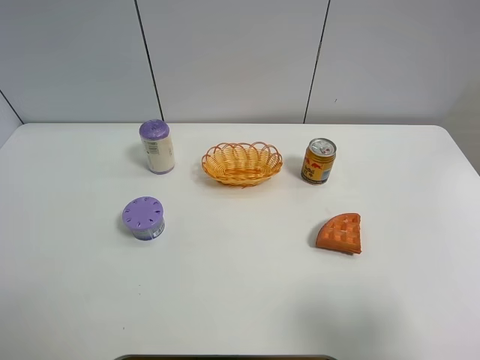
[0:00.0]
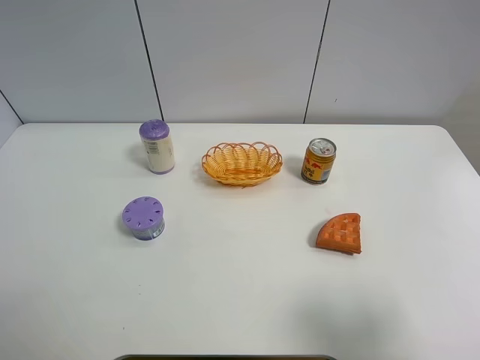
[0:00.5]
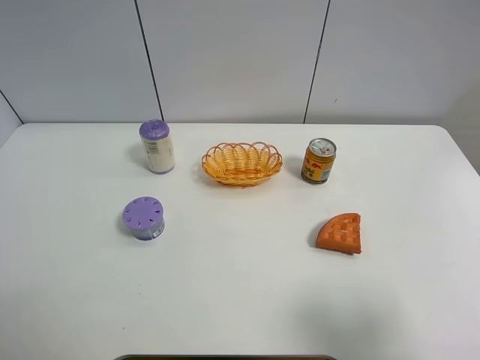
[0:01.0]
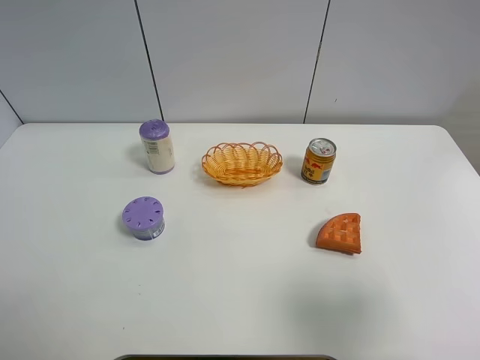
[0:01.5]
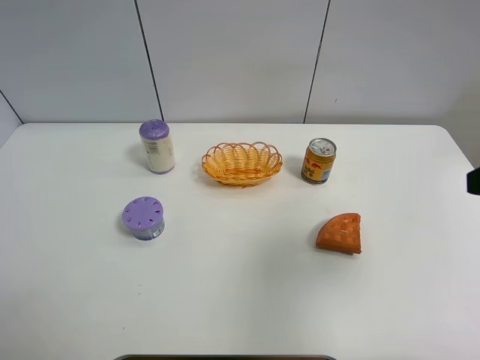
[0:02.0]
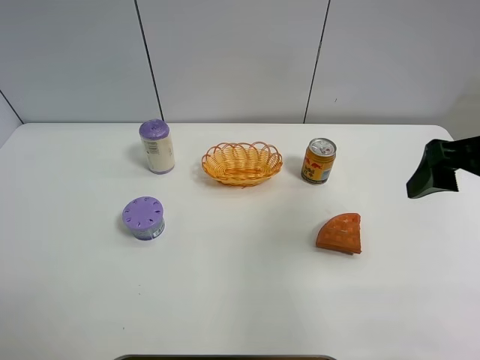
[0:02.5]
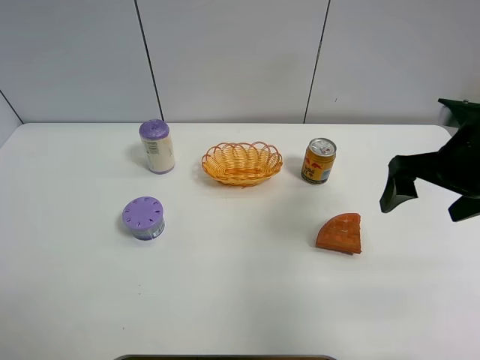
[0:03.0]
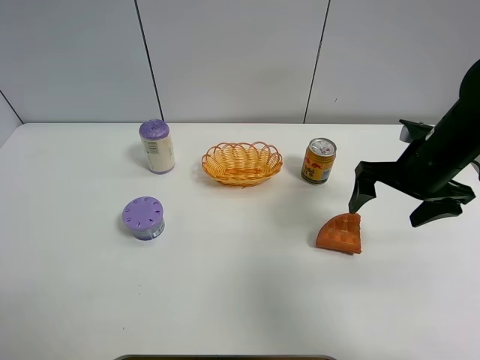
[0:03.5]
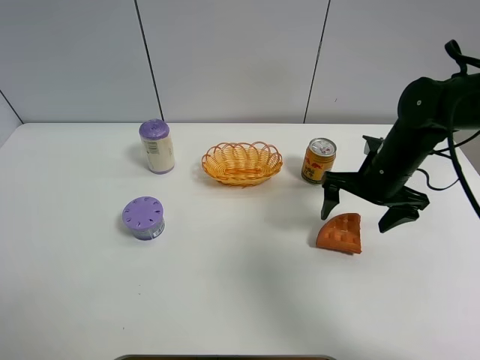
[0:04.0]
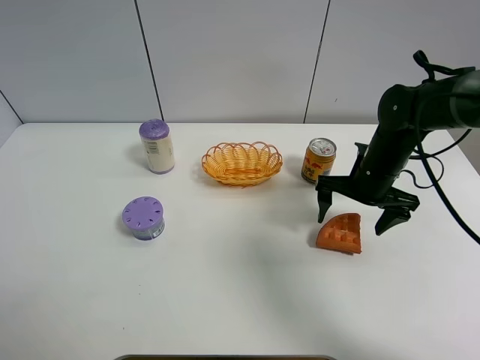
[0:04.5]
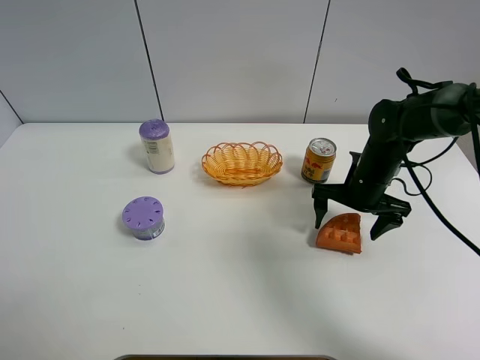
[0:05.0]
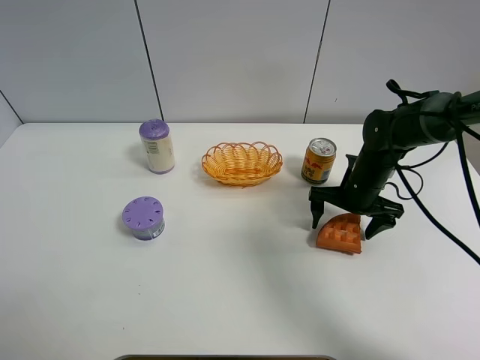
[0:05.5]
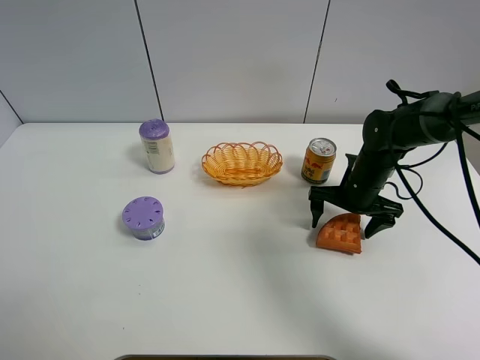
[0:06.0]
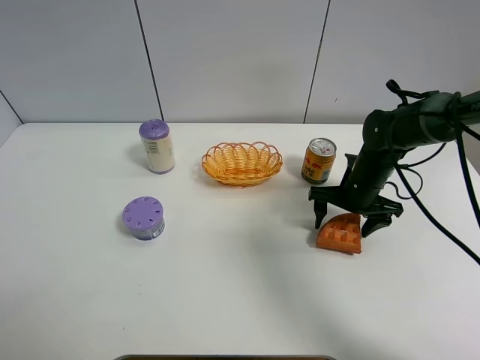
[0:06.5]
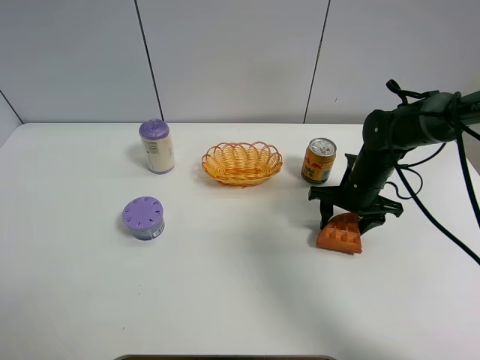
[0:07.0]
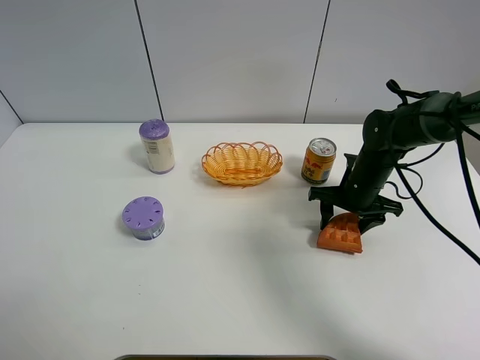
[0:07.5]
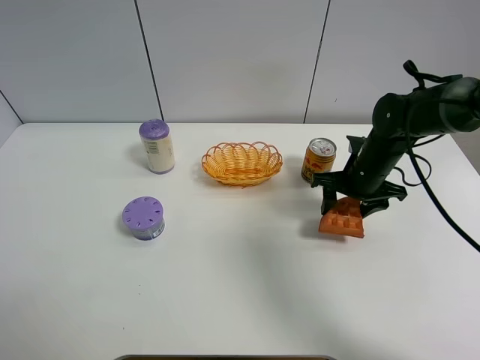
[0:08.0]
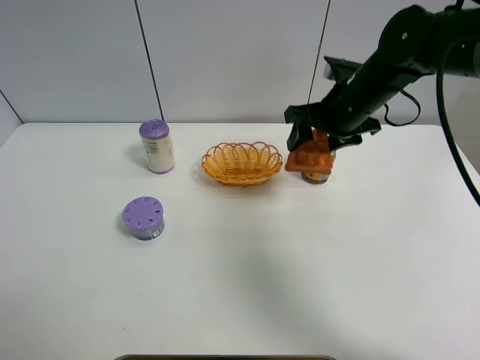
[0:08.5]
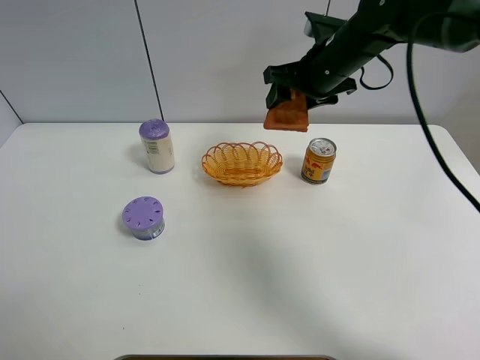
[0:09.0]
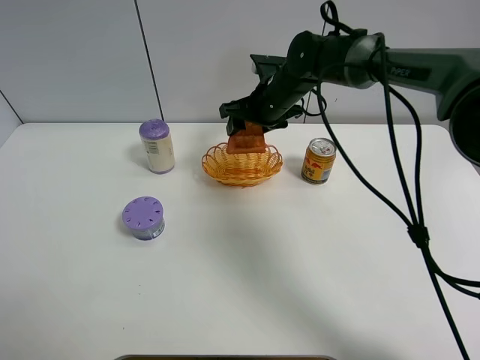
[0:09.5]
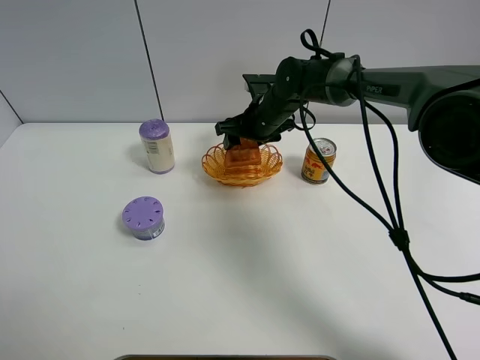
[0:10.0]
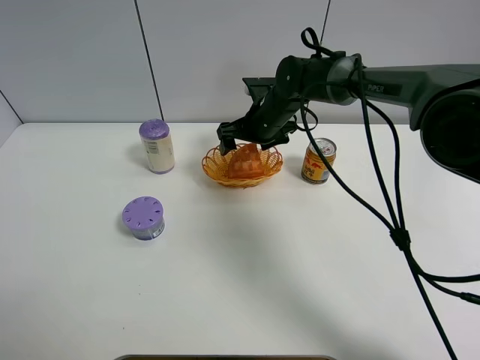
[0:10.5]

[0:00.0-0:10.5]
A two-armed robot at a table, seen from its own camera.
Task of the whole recording: Put the bakery in the basket.
Step, 0:00.0 to 0:06.5: Grasp the bread with right gripper.
0:00.0 to 0:02.0: The right gripper heads forward and upward, covering approximately 15 cm.
0:02.0 to 0:04.0: The right gripper heads forward and downward, covering roughly 25 cm.
0:04.0 to 0:06.5: The right gripper travels downward by roughly 5 cm, and closes its fingers.
0:06.5 to 0:08.5: The right gripper moves upward, approximately 15 cm, and closes up.
0:08.5 to 0:10.5: The right gripper moves to the left, downward and forward, roughly 15 cm, and opens its fingers.

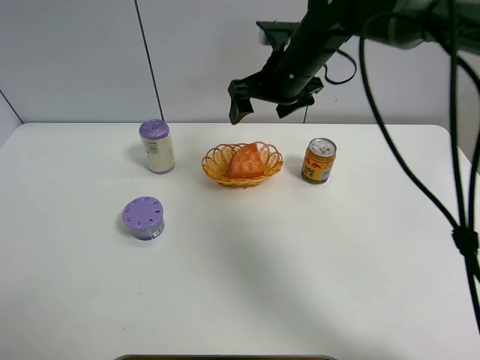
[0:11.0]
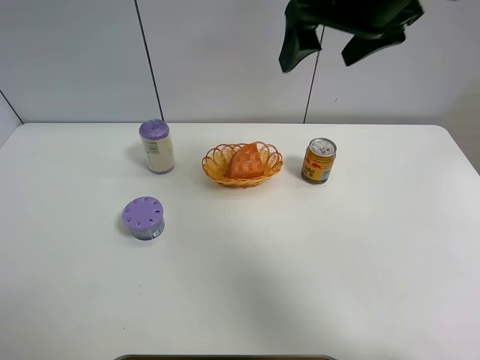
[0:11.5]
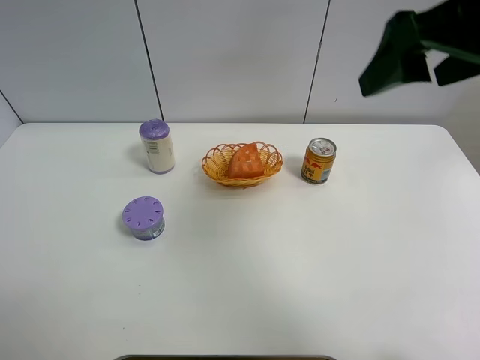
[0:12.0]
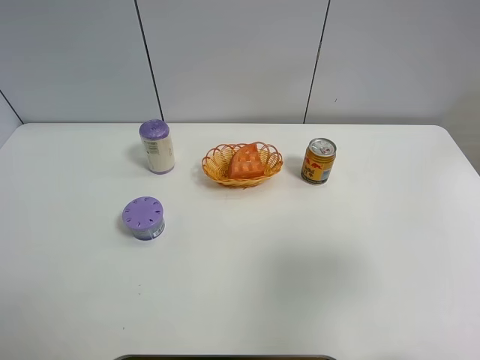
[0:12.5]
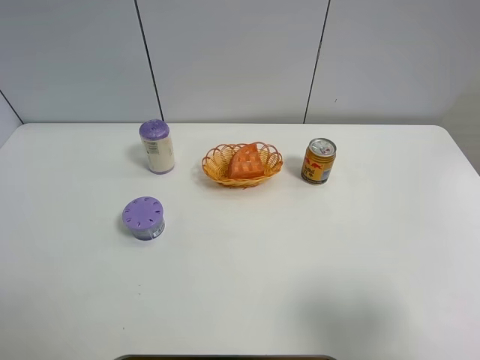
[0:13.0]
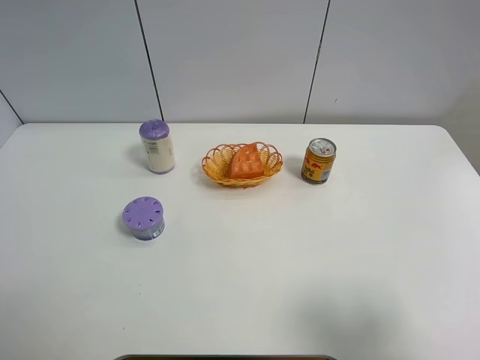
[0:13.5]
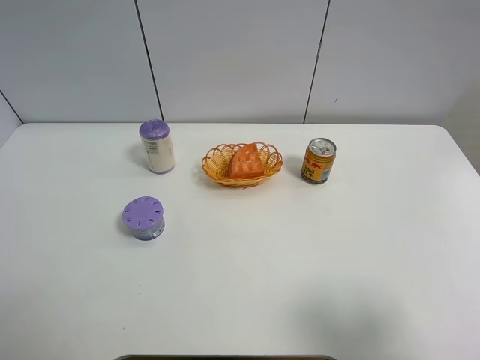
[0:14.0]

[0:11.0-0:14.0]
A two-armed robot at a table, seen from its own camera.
Task of the whole recording: Put the bakery in the basket.
0:11.0 to 0:12.5: The right gripper goes about 40 cm backward and to the right.
0:12.5 to 0:14.0: The right gripper goes some 10 cm backward and downward.

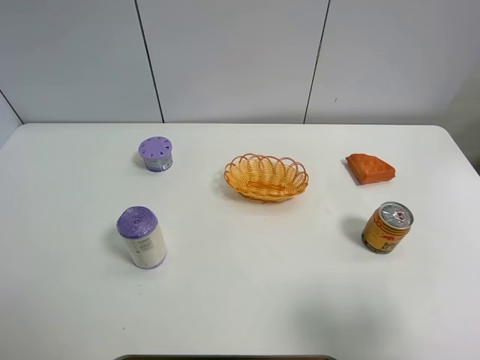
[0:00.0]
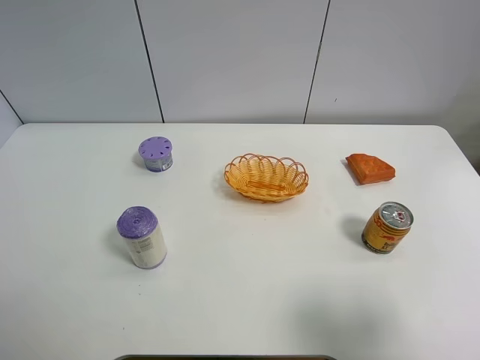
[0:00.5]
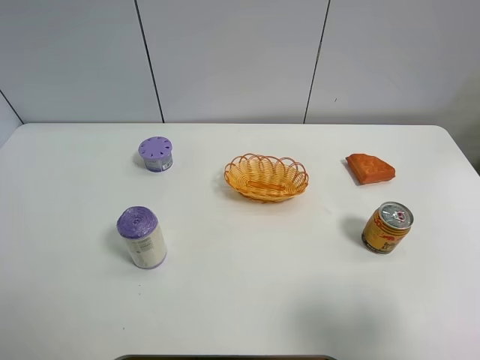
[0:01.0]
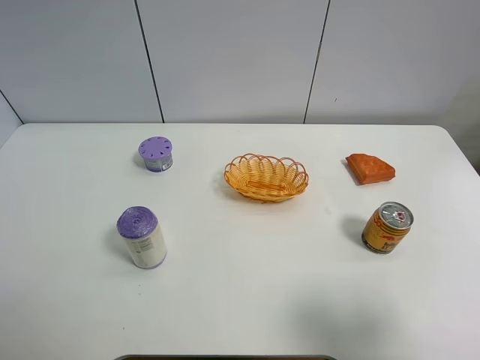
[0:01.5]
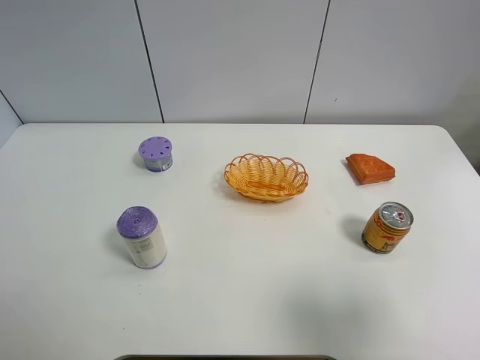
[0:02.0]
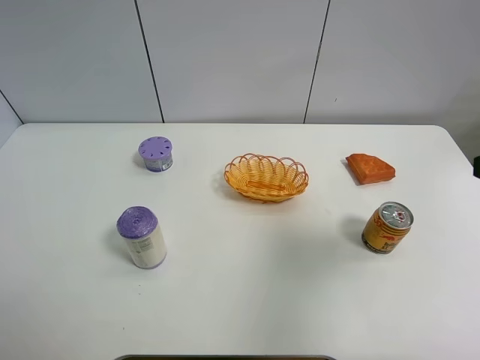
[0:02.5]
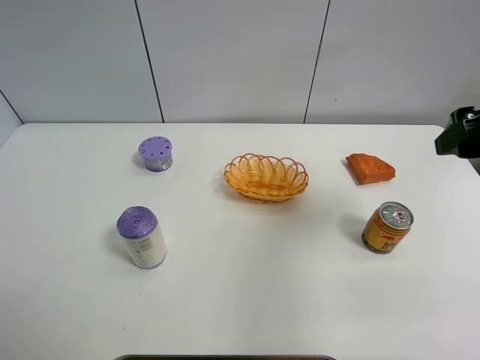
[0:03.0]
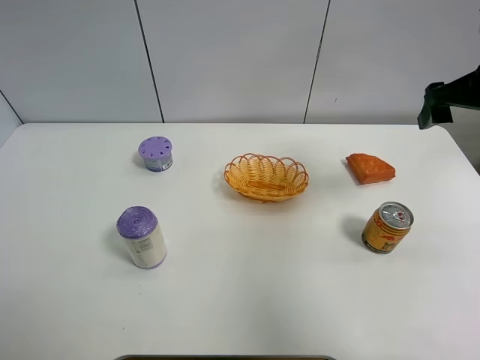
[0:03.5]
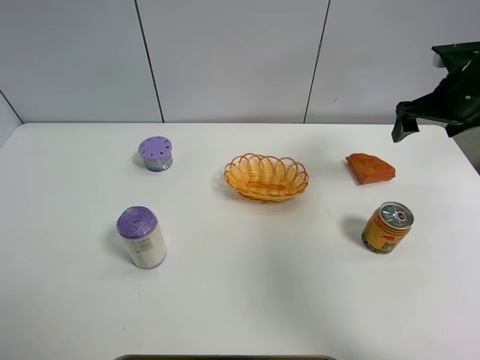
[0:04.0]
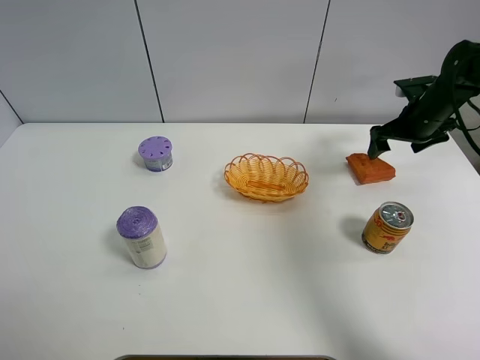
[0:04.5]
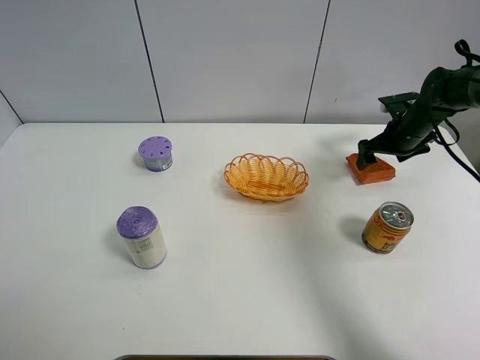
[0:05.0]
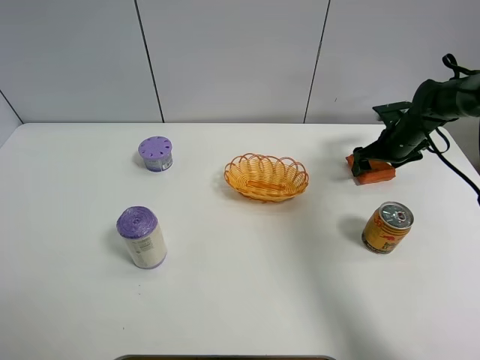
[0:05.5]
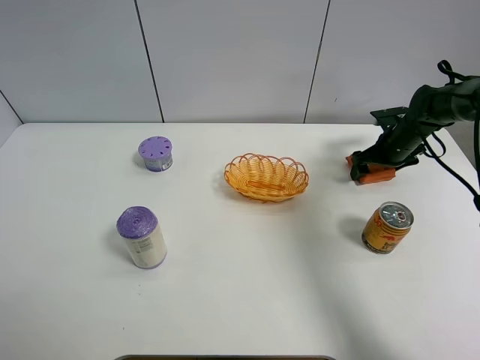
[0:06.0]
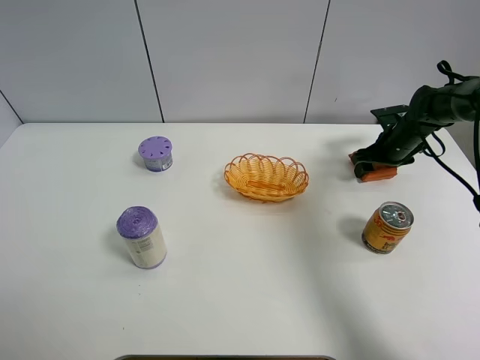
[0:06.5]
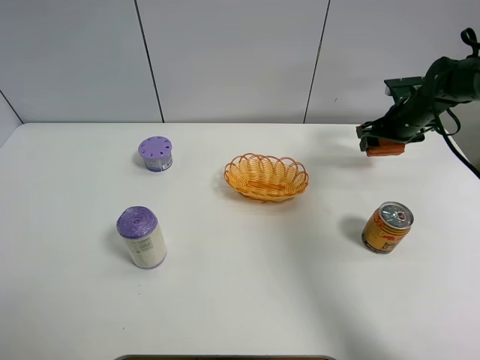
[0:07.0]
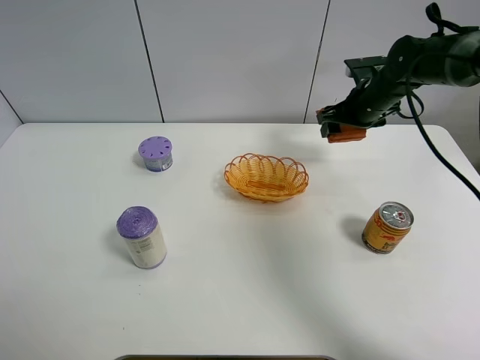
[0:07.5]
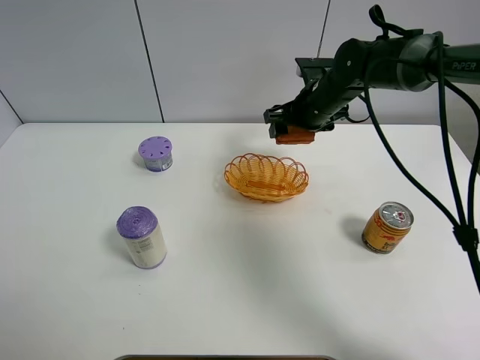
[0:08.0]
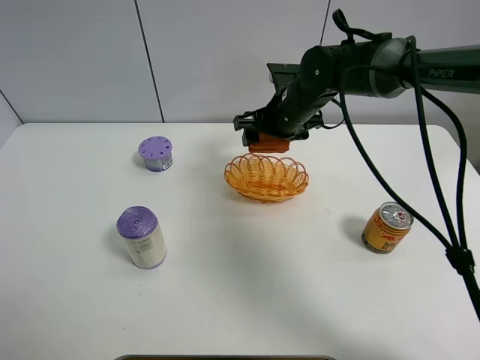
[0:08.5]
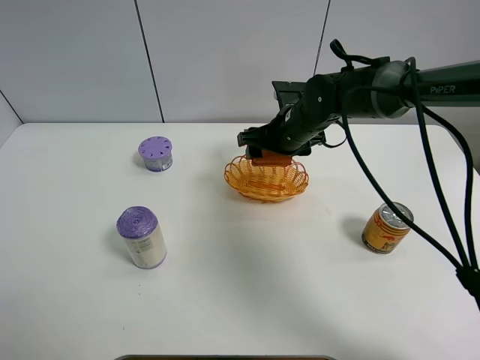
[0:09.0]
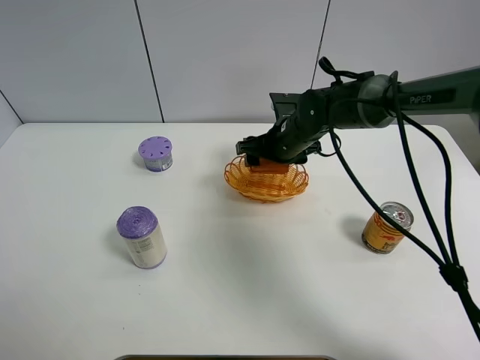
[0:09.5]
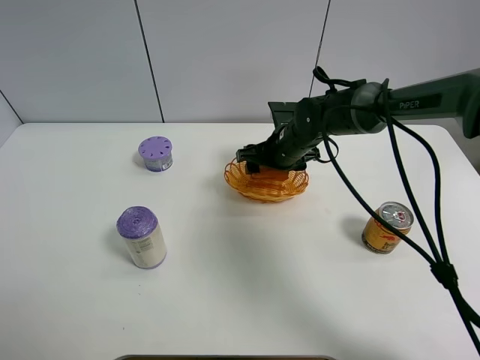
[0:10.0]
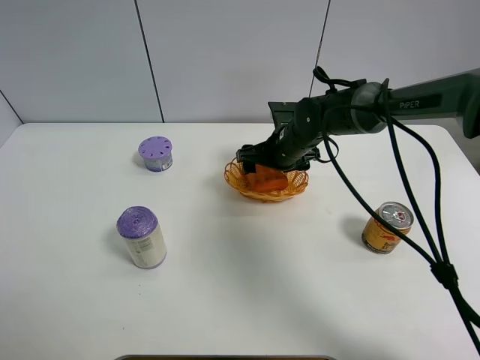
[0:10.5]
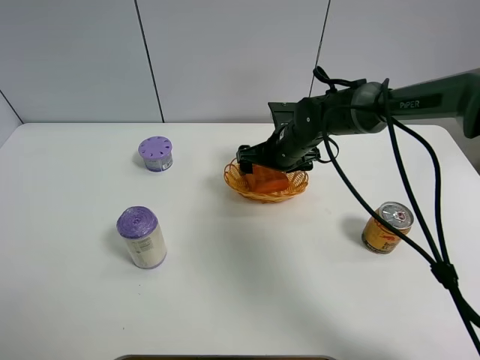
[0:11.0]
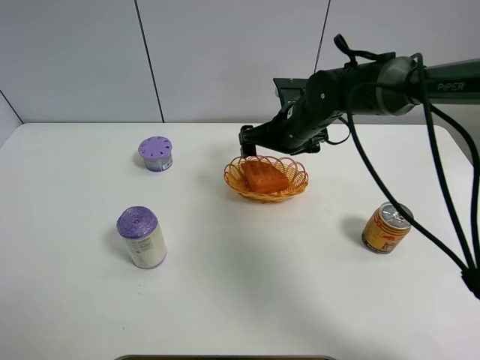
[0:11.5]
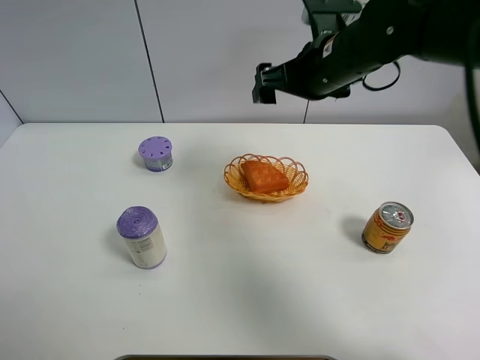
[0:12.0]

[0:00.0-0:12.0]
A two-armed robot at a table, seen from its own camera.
Task of the whole recording: Put the bakery in the basket.
Step, 0:00.0 to 0:06.0: Grasp the bread with right gripper.
Step, 0:06.5 to 0:11.5: Place the bread in the basket with right gripper.
0:02.0 to 0:04.0: The right gripper moves forward, roughly 35 cm.
0:04.0 to 0:06.0: The right gripper goes roughly 15 cm downward and forward.
0:06.0 to 0:08.0: The right gripper heads to the left and upward, covering roughly 20 cm, and closes up.
0:08.0 to 0:10.0: The right gripper travels downward by roughly 5 cm.
0:10.0 to 0:12.0: The right gripper is displaced upward by some 20 cm, and opens.
